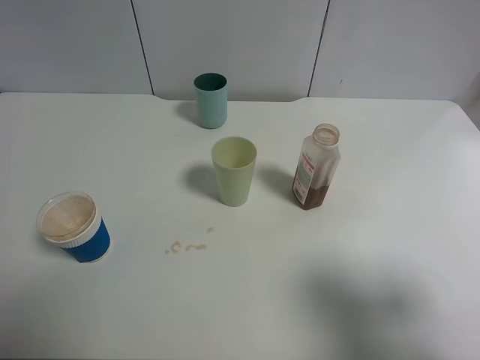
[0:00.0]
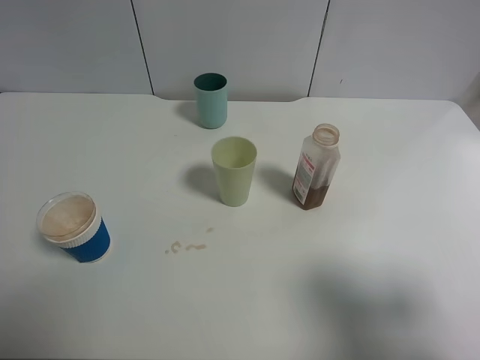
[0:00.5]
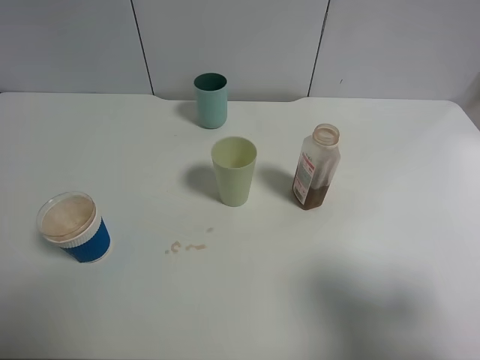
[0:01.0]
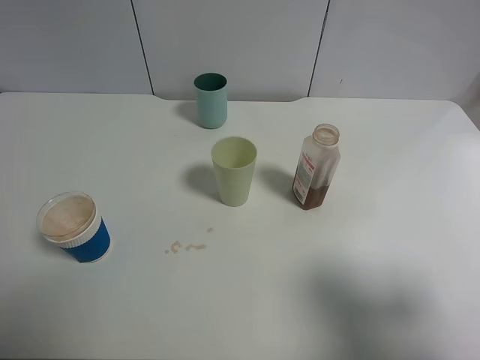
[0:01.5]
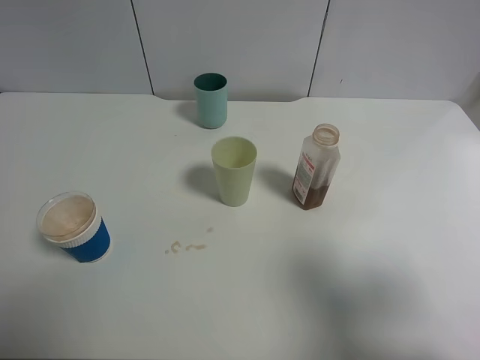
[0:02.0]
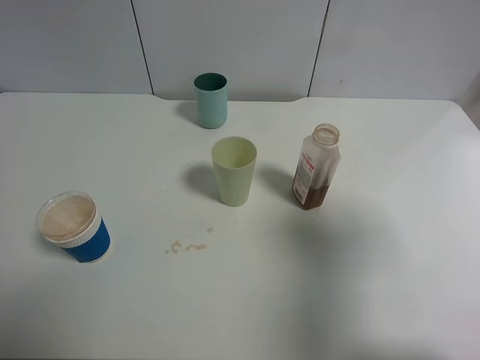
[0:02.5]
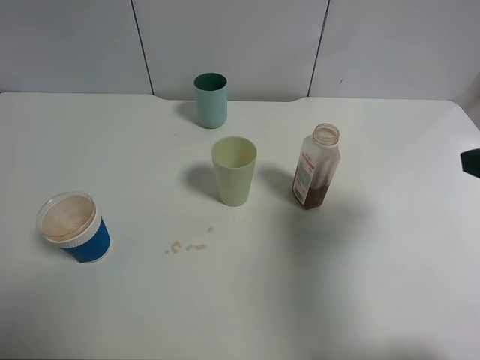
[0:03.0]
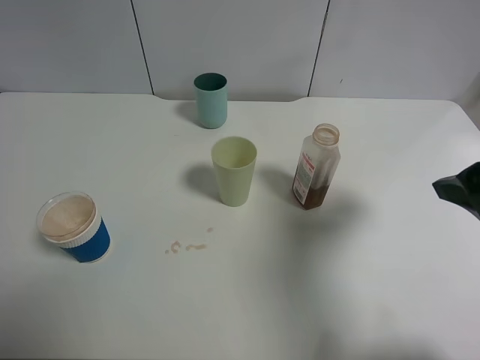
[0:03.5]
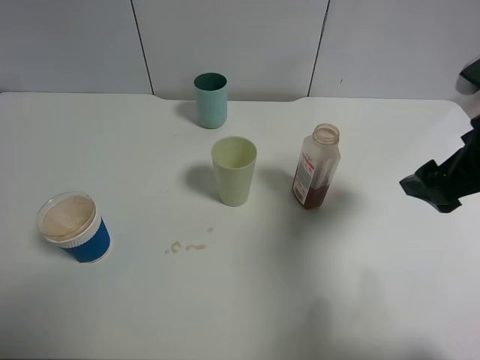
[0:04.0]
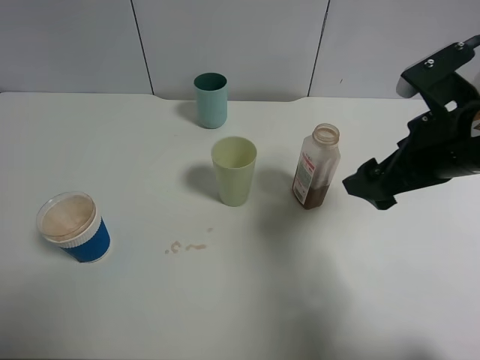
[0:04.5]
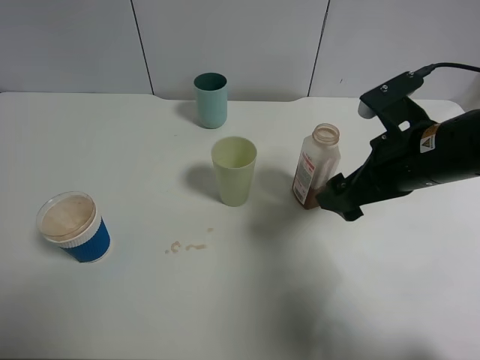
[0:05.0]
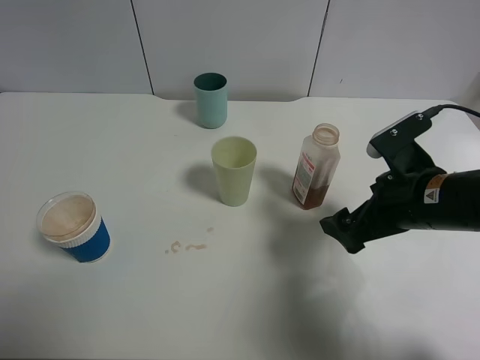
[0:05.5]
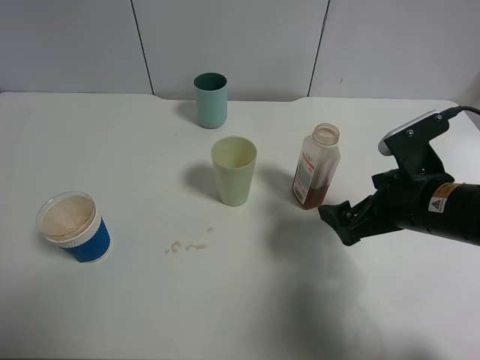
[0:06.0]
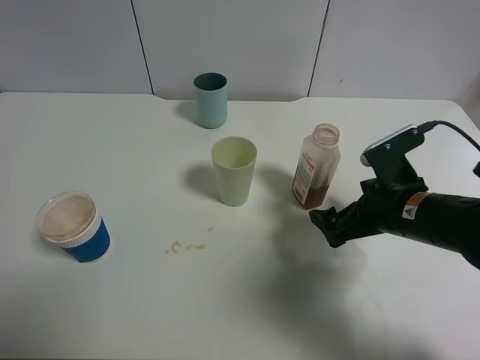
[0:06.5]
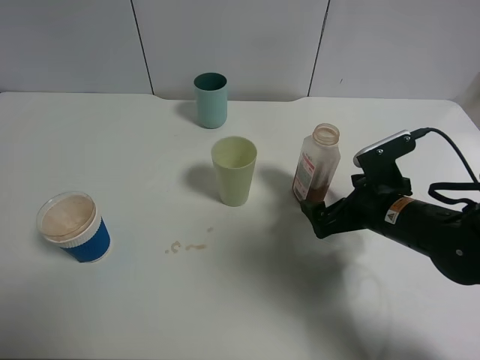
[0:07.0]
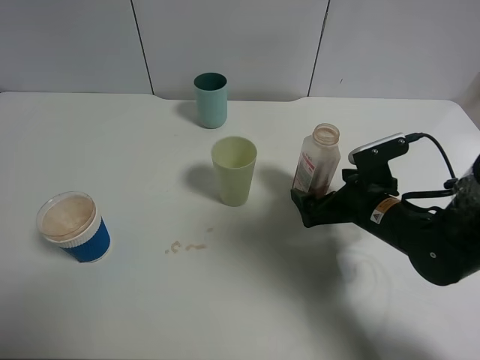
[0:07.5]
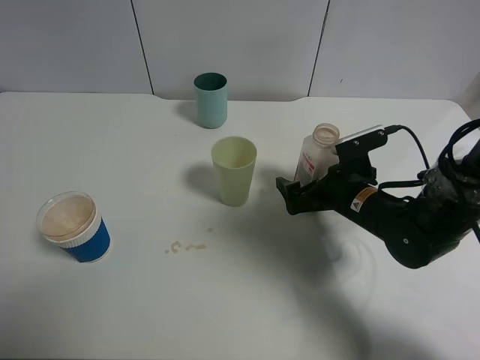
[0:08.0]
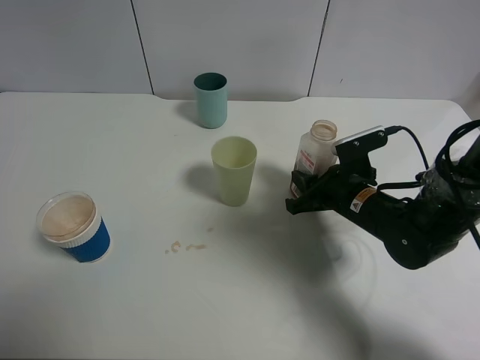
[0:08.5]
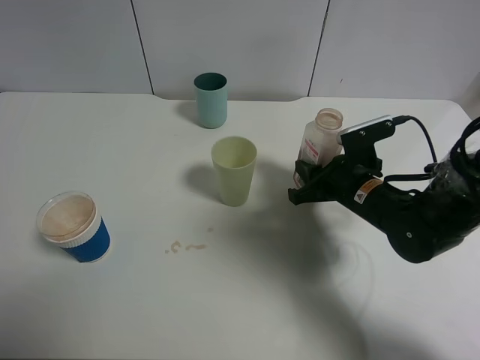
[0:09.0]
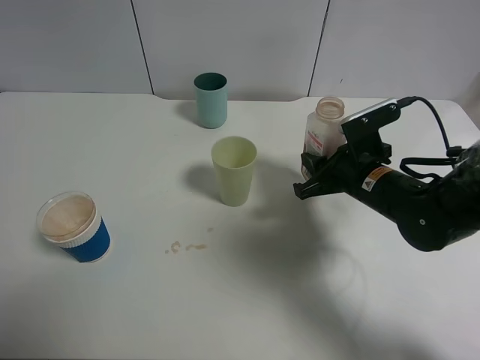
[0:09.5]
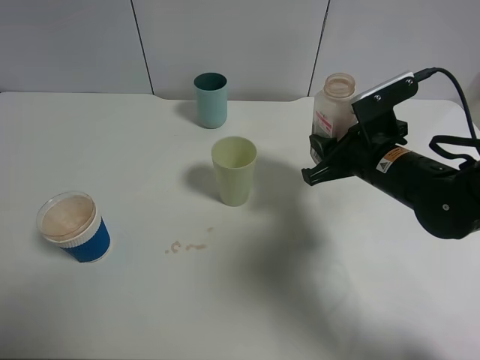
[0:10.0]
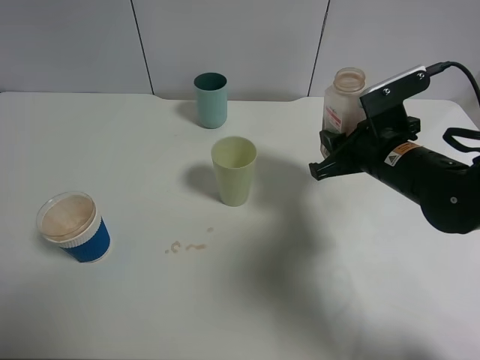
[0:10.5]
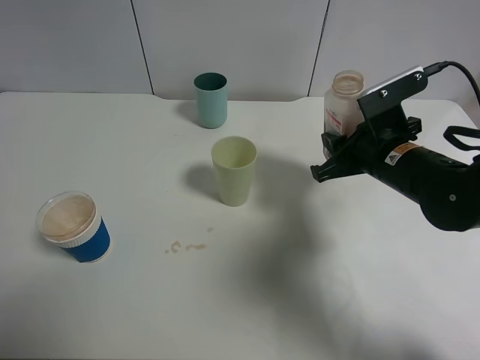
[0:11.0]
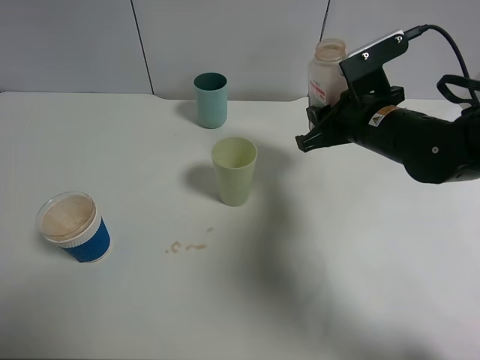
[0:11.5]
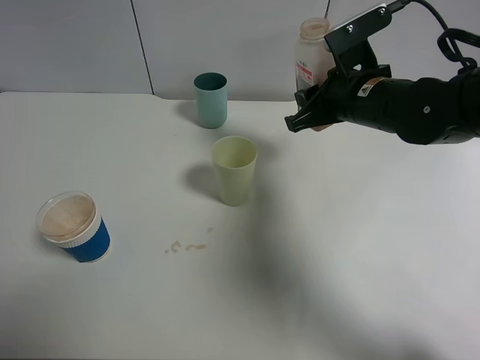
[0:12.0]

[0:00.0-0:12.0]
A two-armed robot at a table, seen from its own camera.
Task of the whole recording: use a clamp to hold the bottle of the drink, pour the beverage into a random cup, then clamp the cup containing the drink and pour the drink into another random cup.
0:02.0 to 0:04.0: The right gripper is displaced forward by approximately 20 cm.
0:04.0 to 0:06.0: The right gripper goes about 10 cm downward.
0:06.0 to 0:08.0: The right gripper goes some 10 cm downward and forward.
0:08.0 to 0:10.0: The right gripper goes roughly 5 cm upward, and closes up.
0:10.0 to 0:12.0: The right gripper is displaced upward and forward by some 10 cm.

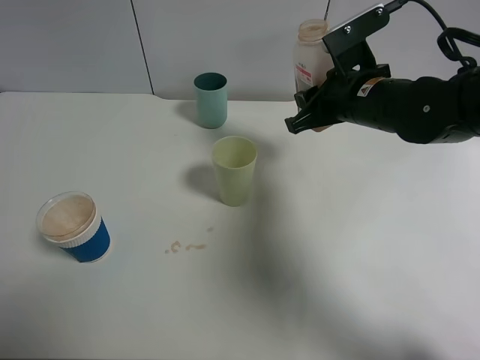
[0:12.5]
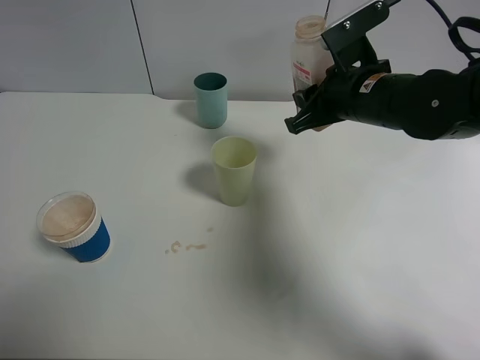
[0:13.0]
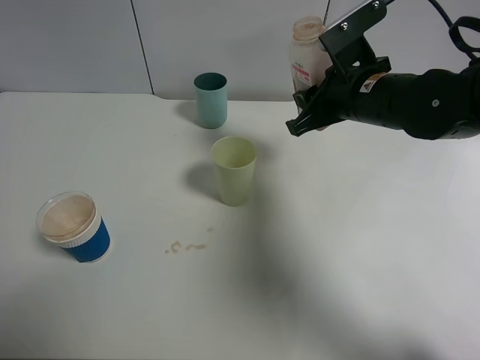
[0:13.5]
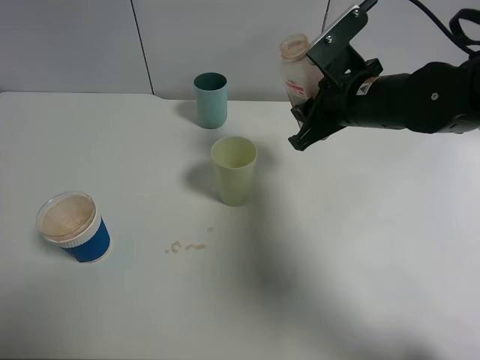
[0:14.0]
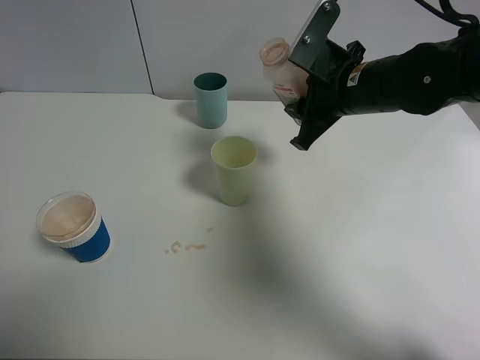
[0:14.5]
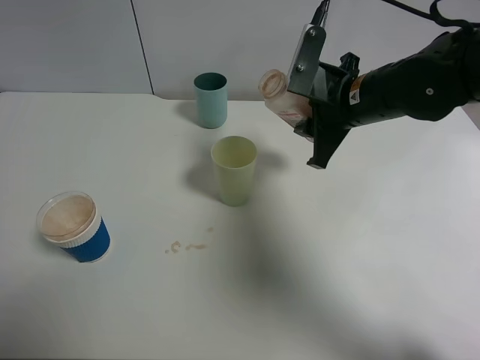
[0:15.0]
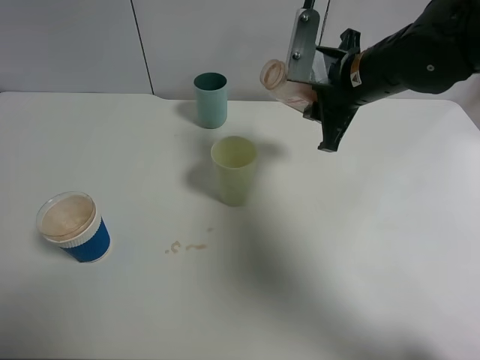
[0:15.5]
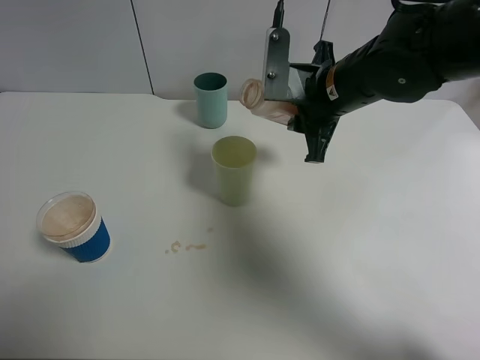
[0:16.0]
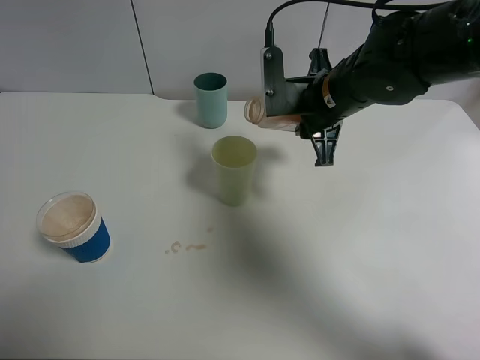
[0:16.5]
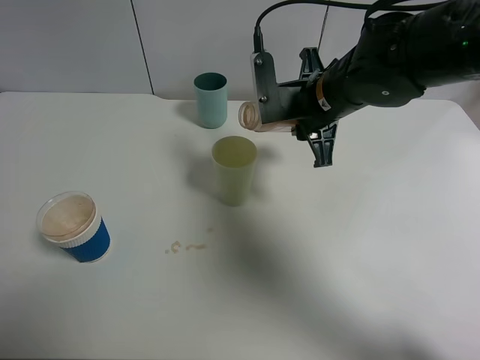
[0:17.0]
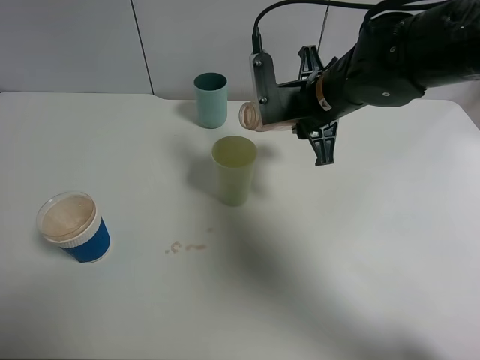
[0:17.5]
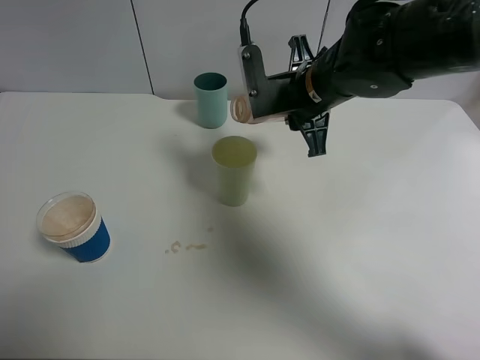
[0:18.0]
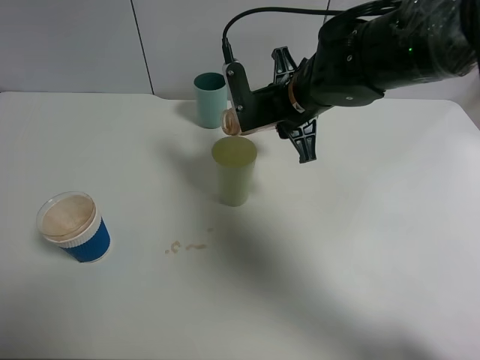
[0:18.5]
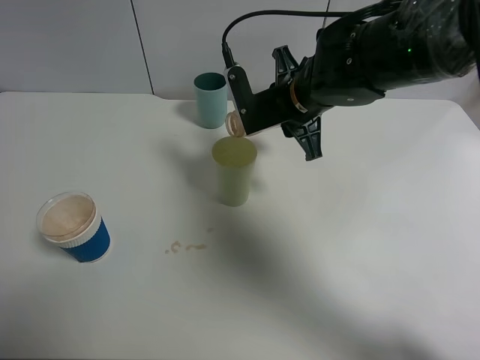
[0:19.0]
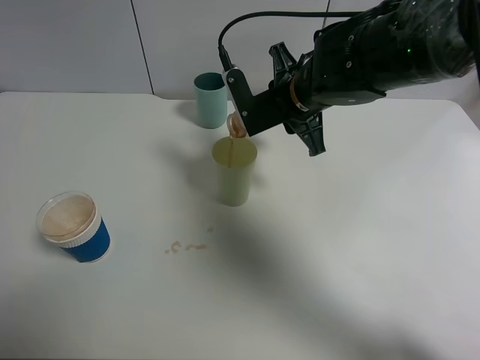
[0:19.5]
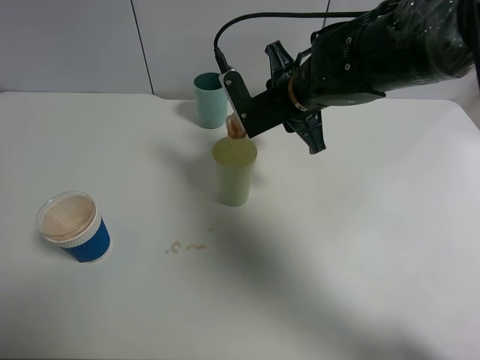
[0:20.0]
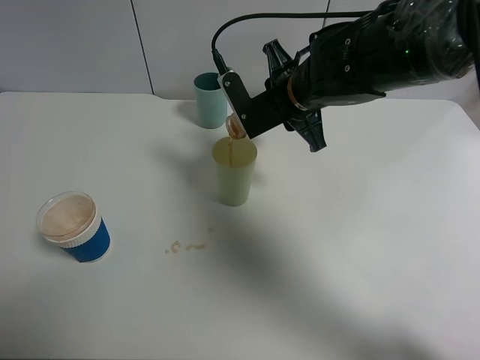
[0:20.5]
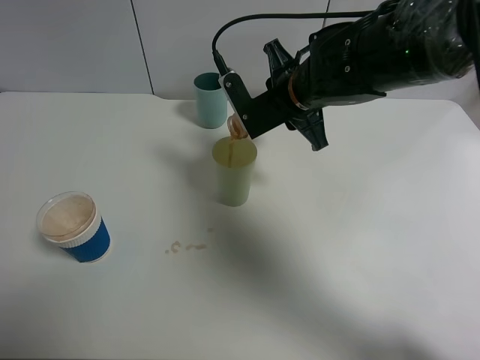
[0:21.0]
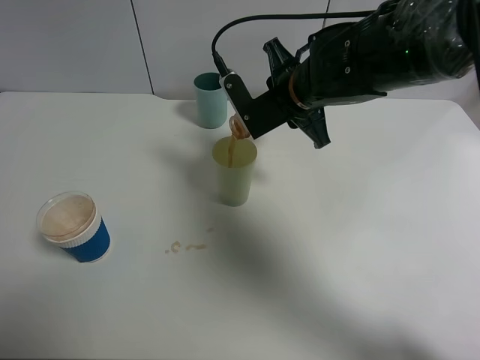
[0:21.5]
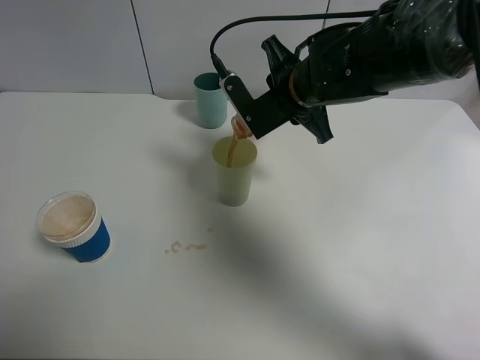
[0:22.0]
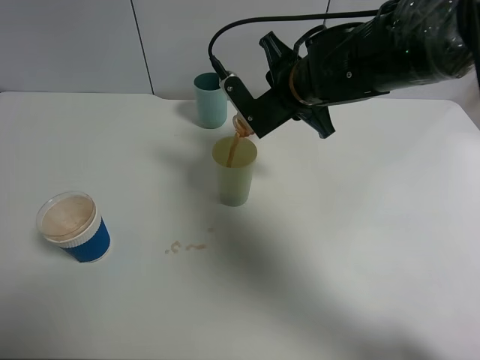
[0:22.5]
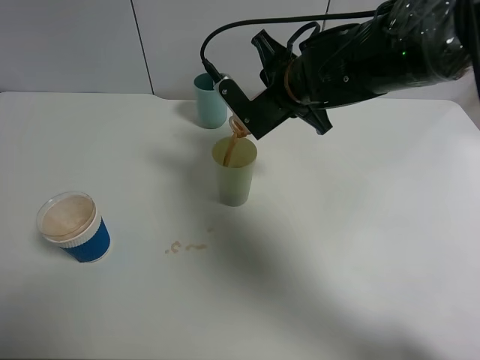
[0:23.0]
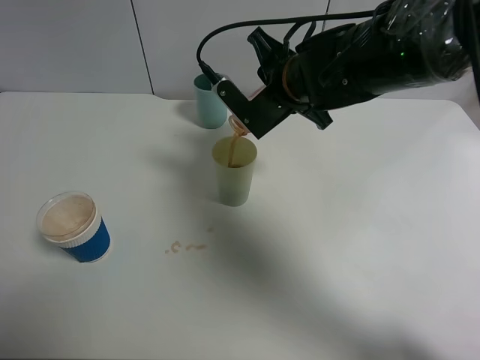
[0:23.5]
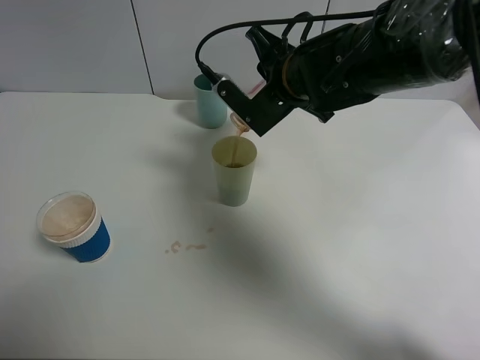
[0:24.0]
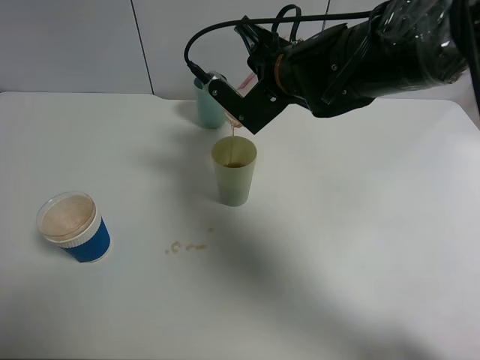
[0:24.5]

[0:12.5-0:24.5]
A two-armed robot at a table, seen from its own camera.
Task of the whole recording: use a clamp to hold the bottle of the drink, pour the beverage into a random cup, then clamp the cup containing the drink and pour the drink into another random cup.
0:16.5 to 0:18.5: The grippers stay close to where they were, moving slightly.
0:18.5 to 0:20.5: The grippers stay close to where they were, moving slightly.
0:20.5 to 0:22.5: The grippers move only a little.
0:22.5 to 0:24.5: The grippers move only a little.

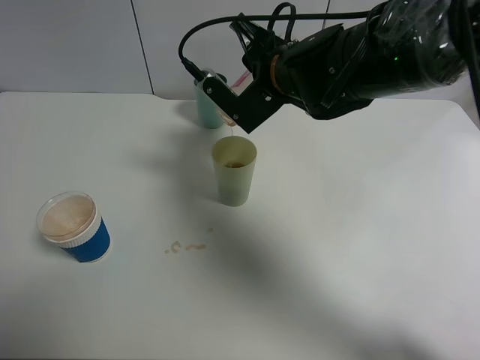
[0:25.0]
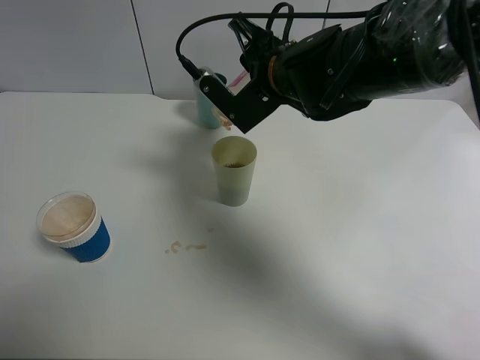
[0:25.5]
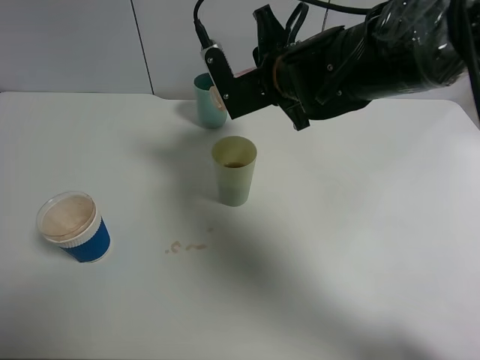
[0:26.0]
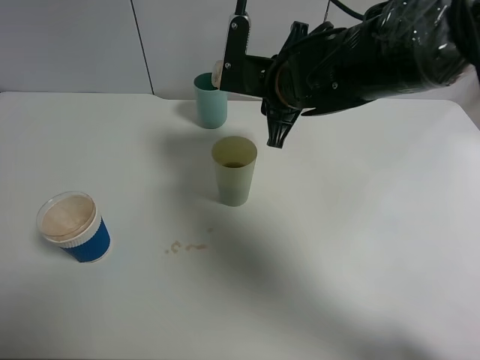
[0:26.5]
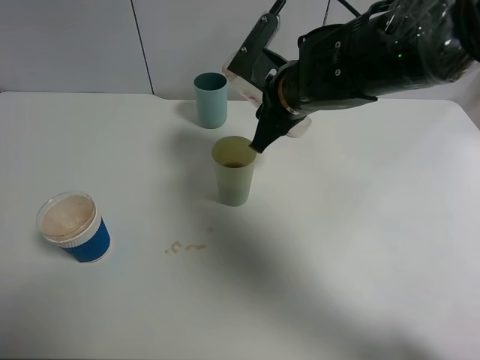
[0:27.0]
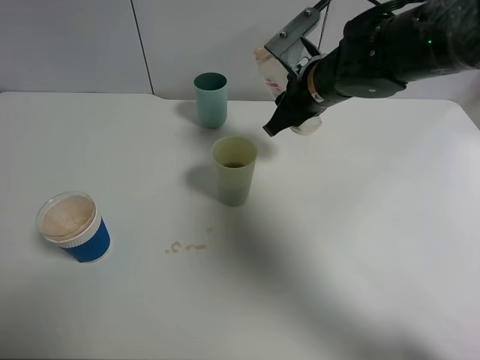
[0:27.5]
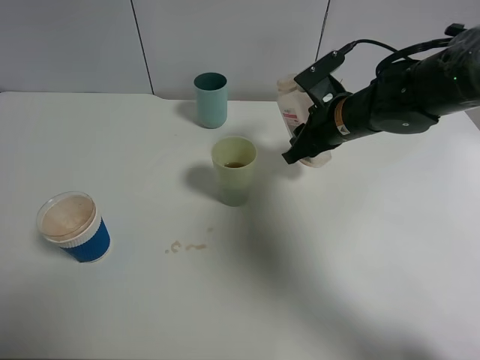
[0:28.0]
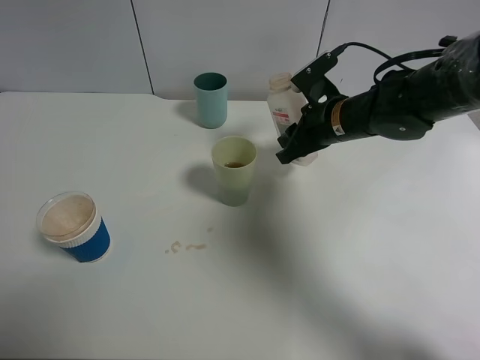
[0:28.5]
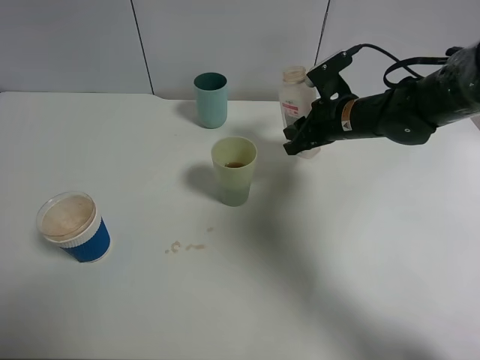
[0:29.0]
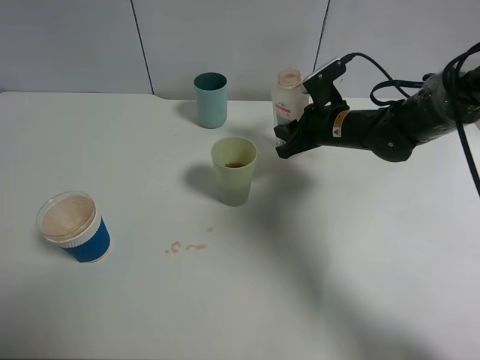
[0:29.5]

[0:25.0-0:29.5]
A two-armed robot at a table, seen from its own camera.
Task of the whole recording: use a clamp to hold the bottle of the drink, pour the beverage into a random cup, then clamp the cup containing the drink and pour the drink into another random cup.
0:27.0 to 0:29.5: The right gripper travels to the right, downward and forward by some 15 cm.
